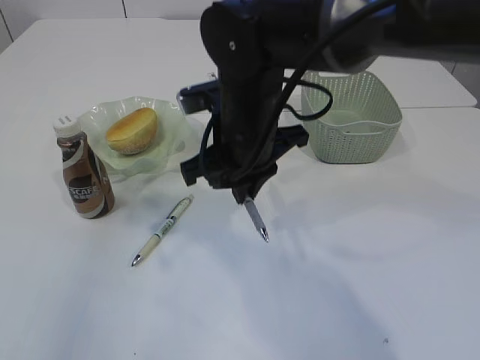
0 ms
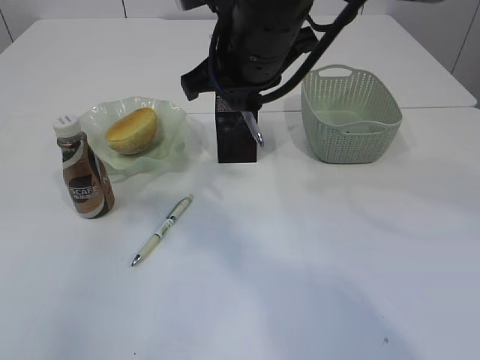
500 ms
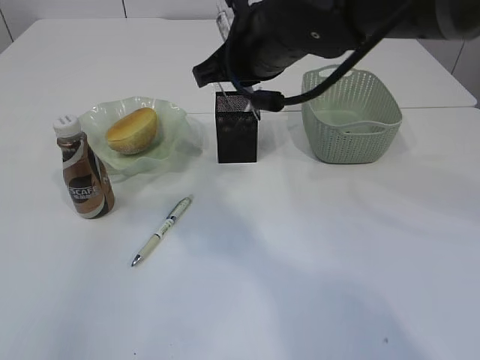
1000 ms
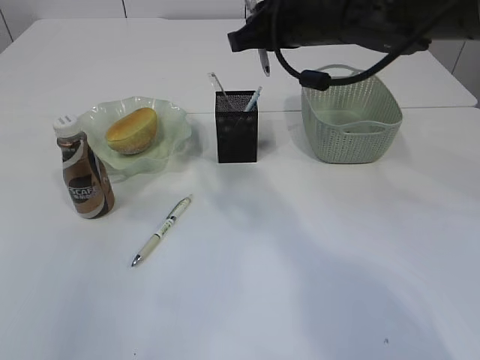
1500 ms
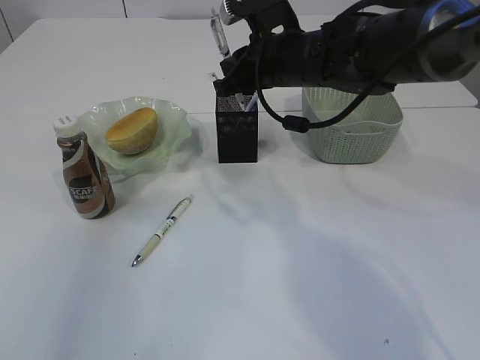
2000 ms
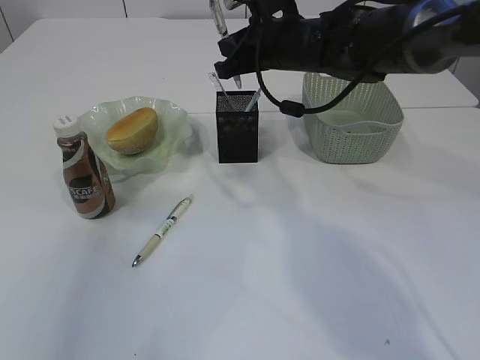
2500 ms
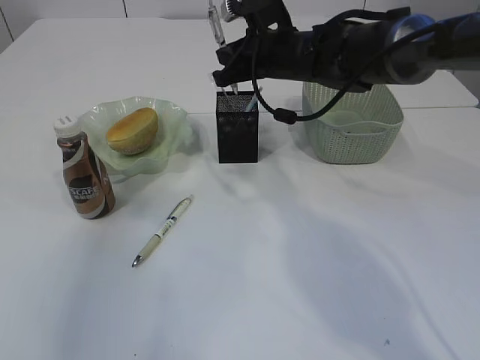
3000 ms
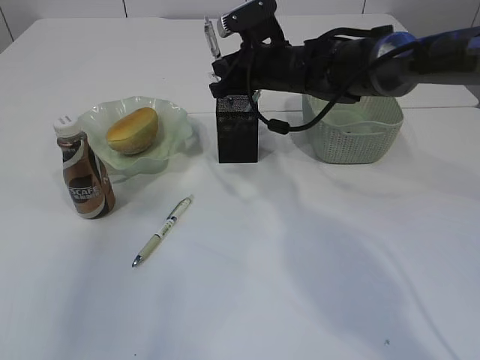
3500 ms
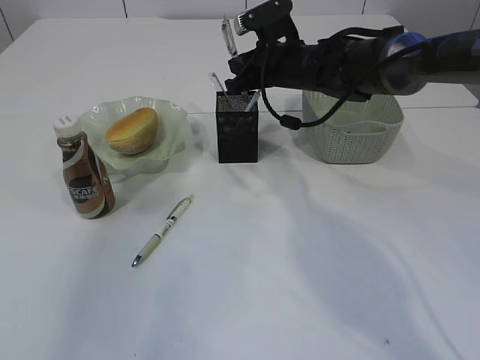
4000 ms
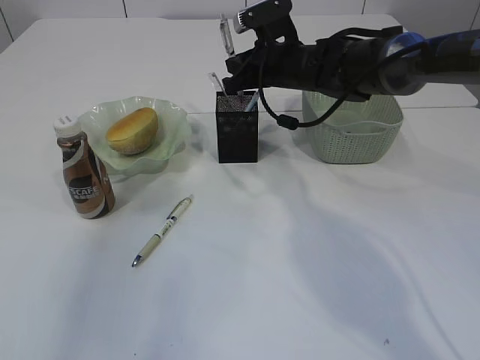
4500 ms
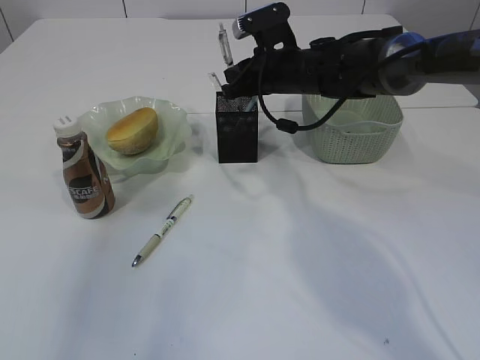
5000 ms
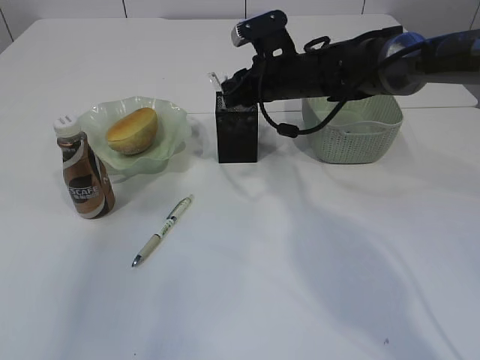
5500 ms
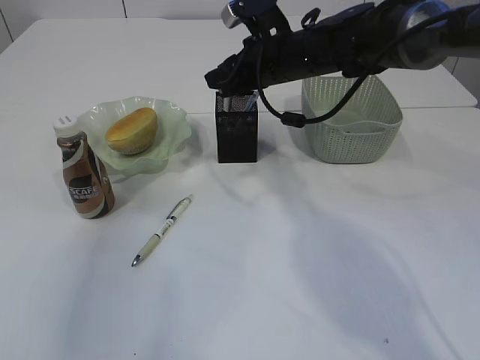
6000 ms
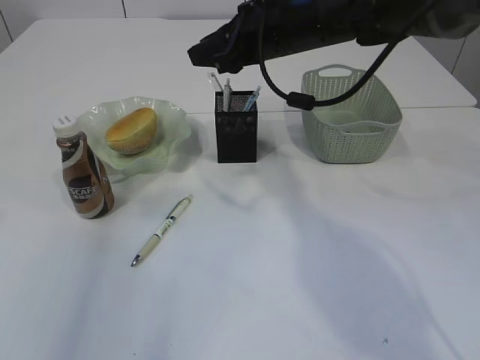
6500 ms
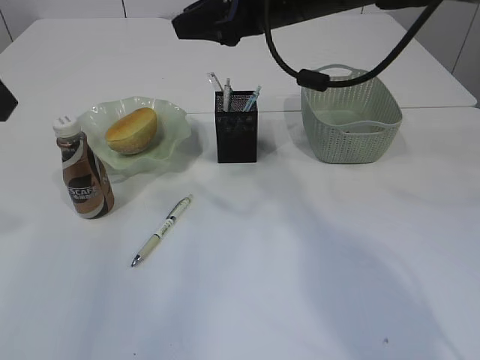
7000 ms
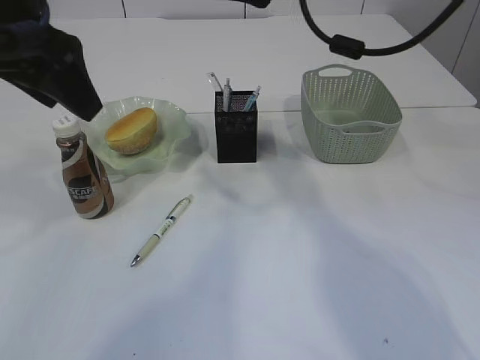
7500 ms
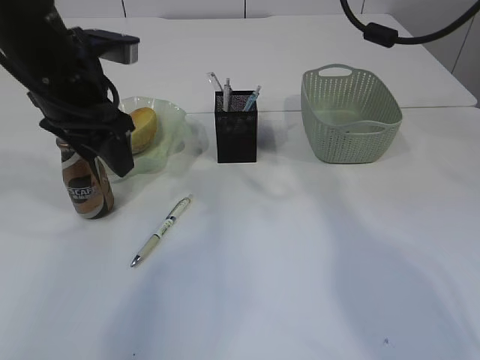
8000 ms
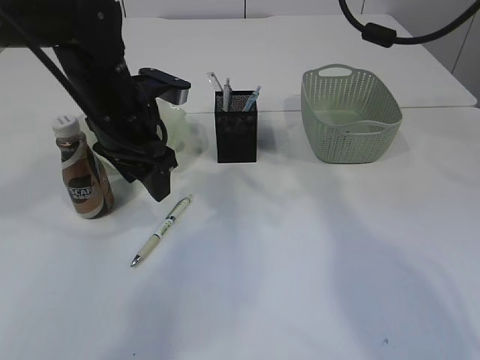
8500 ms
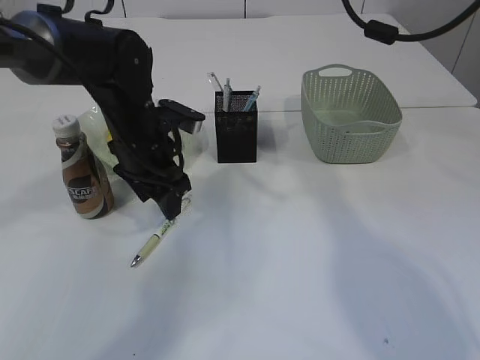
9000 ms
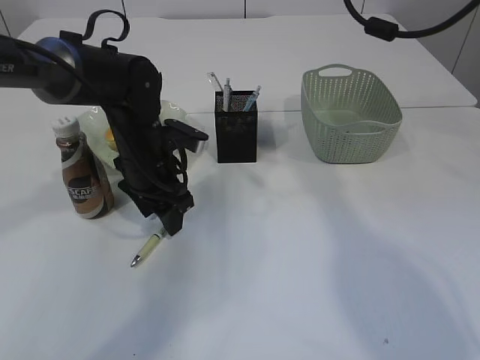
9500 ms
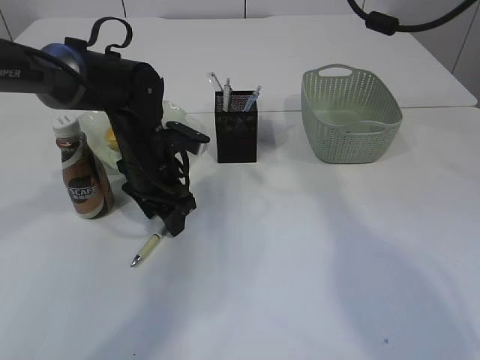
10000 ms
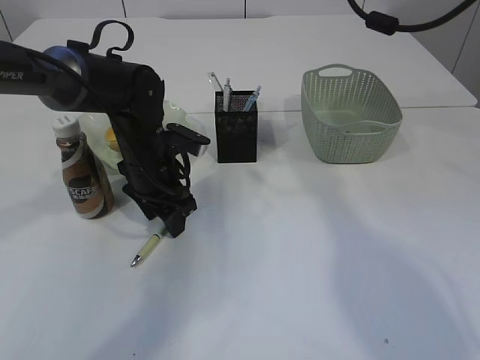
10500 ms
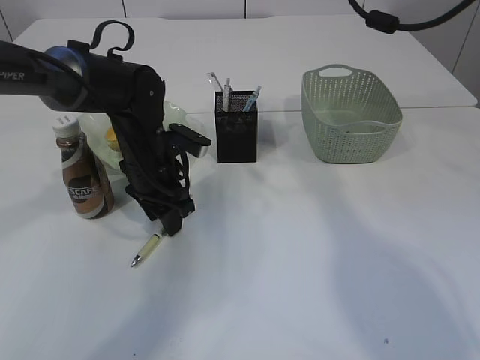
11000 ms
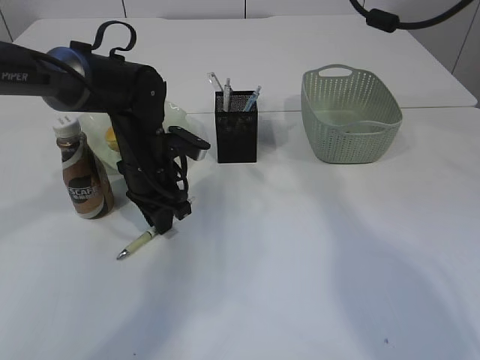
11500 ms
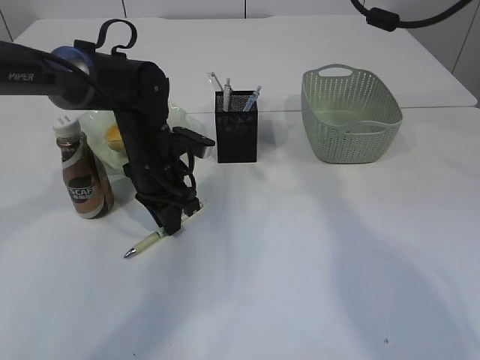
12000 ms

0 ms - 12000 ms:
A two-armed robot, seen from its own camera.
Step, 500 ms - 6500 ms: Place the pen into the pen holder.
0 ms - 2000 ms: The right gripper travels forward and to the right by some 10 cm.
2000 ms - 4000 ms: The right gripper goes approximately 5 cm forward.
4000 ms - 6000 ms: The grippers stay close to where they were, moving slightly.
6000 ms - 8000 ms: The left gripper heads forward, downward and to the right, covering some 20 cm. The right gripper travels upward and to the right by roughly 15 cm.
8000 ms - 10000 ms: The left gripper goes some 15 cm downward.
10000 ms - 12000 ms: The left gripper closes.

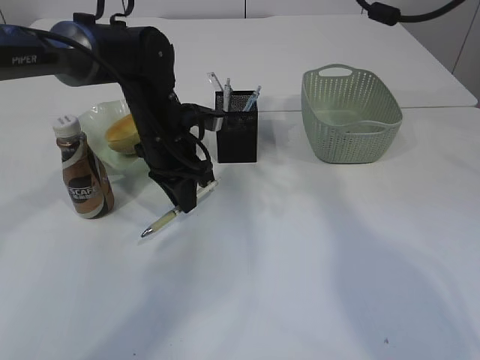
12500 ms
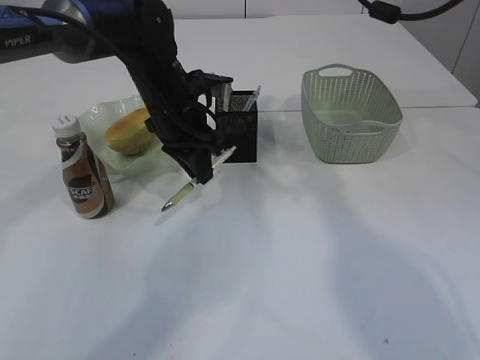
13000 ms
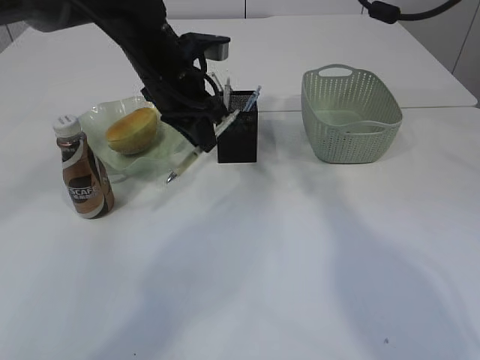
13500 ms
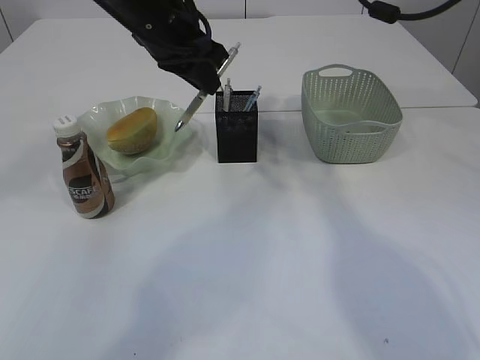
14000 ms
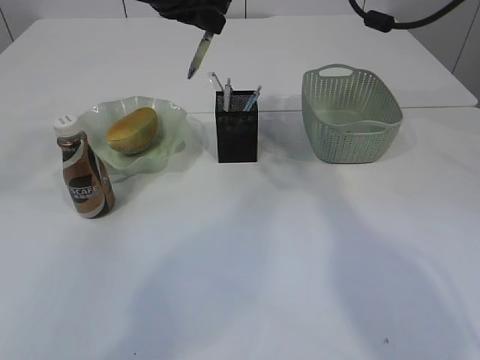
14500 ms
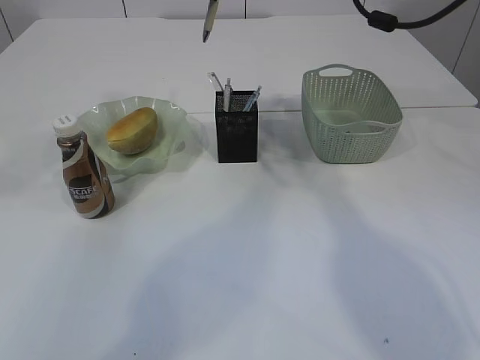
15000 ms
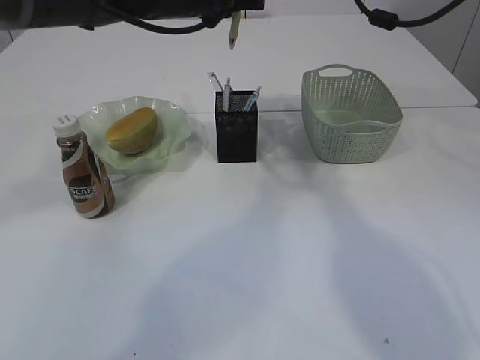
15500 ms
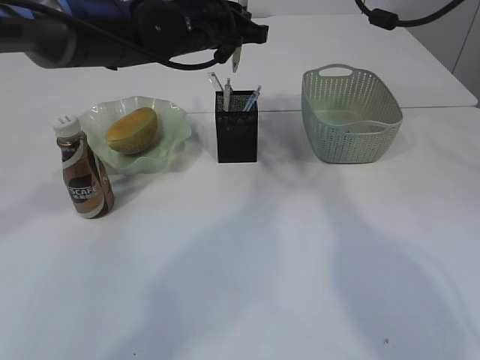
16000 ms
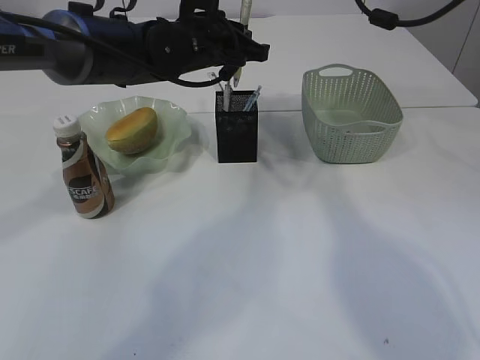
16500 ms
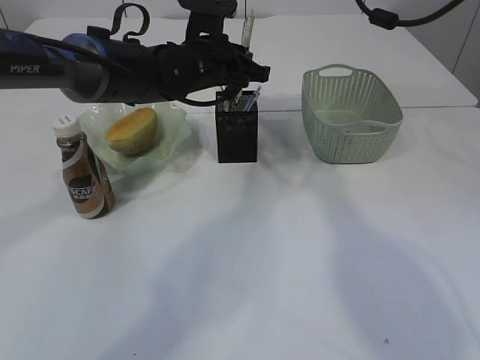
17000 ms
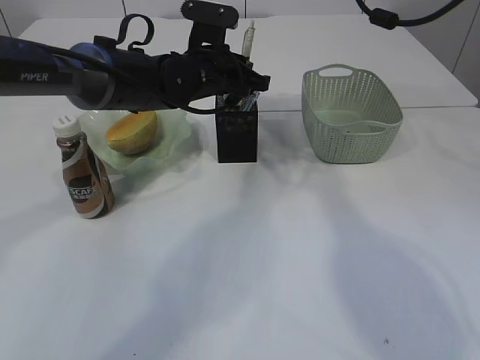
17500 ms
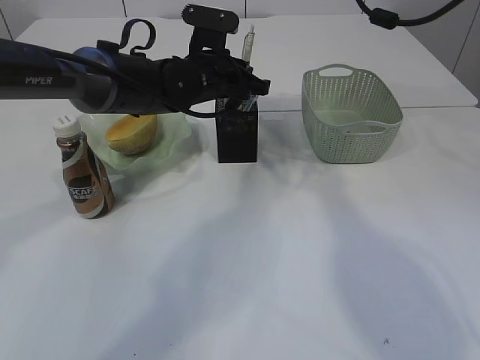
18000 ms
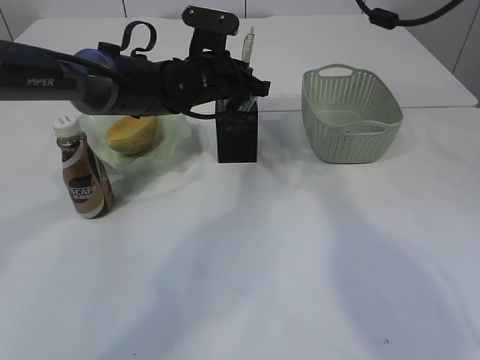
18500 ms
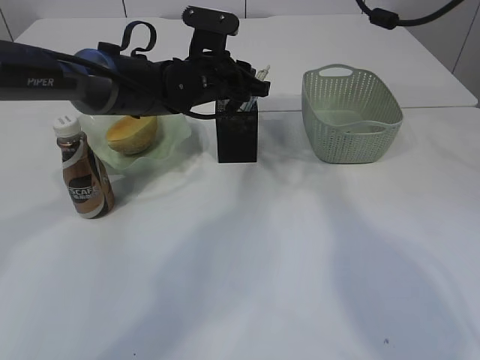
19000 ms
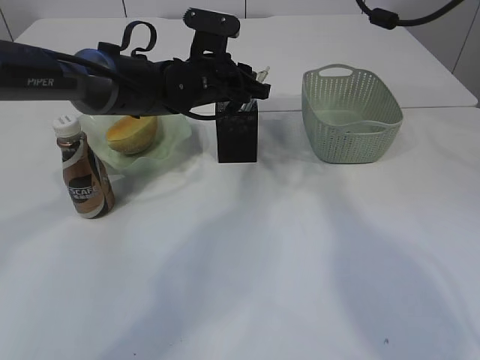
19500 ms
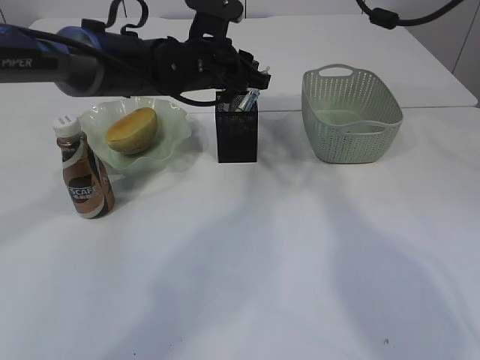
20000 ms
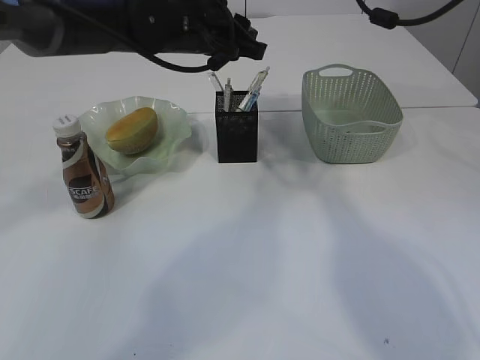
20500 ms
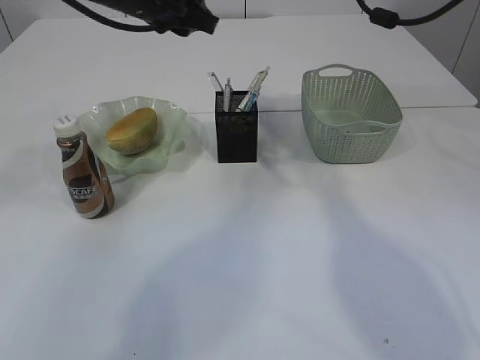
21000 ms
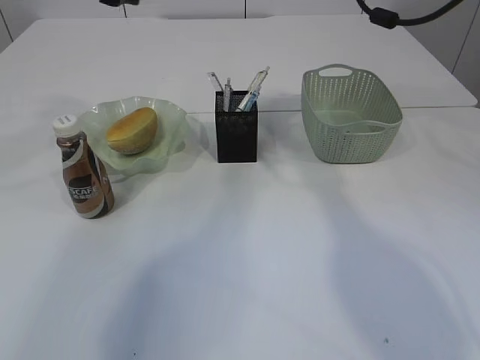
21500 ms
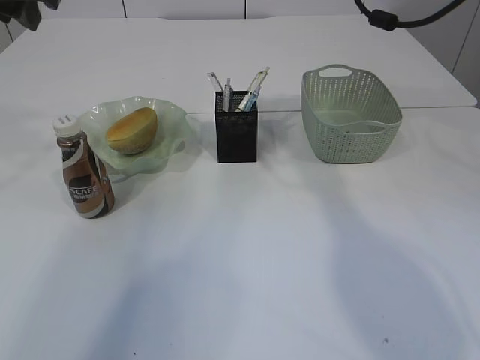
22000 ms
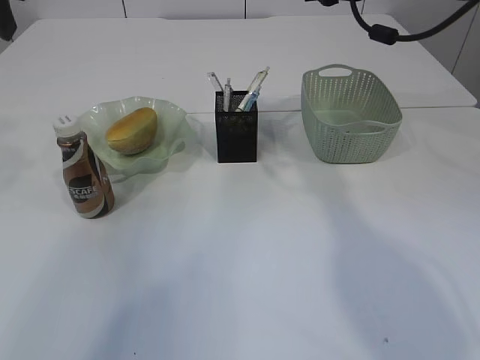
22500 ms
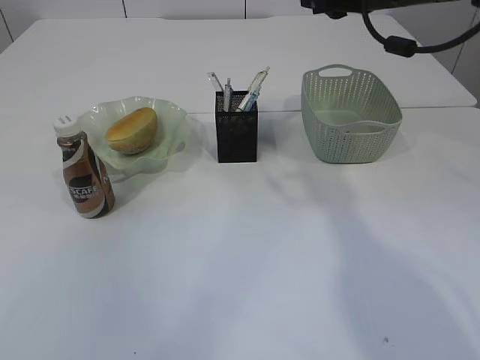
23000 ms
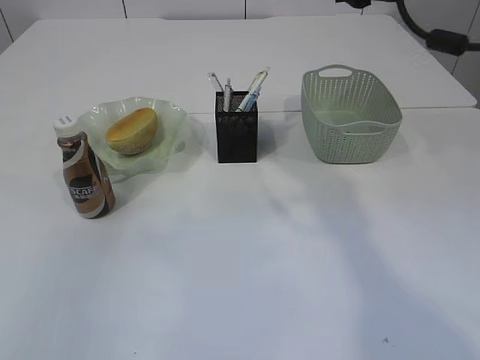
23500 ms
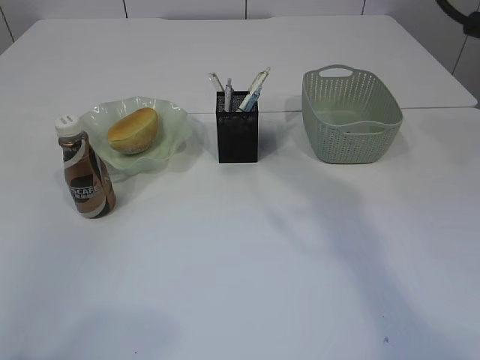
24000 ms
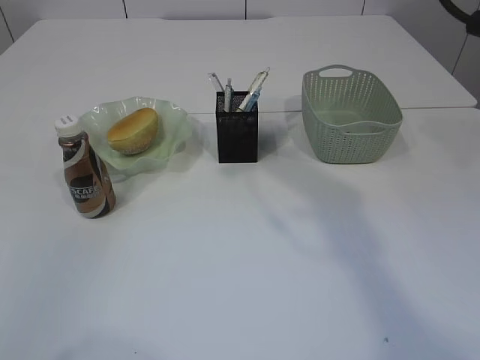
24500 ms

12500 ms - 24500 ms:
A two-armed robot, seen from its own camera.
Step, 13000 ms - 20500 ms: Place the pen into the pen holder.
12500 ms - 14500 ms: The left gripper goes about 20 cm upward.
14500 ms - 16500 ms: The left gripper moves downward, about 10 cm.
16500 ms - 18500 ms: The left gripper moves downward, roughly 5 cm.
18500 ms - 20500 ms: The left gripper shifts approximately 10 cm upward.
20500 ms - 22500 ms: The left gripper moves to the left, upward and backward, approximately 25 cm.
22500 ms - 24500 ms: The left gripper moves backward, approximately 35 cm. The right gripper is displaced backward and upward by some 15 cm.

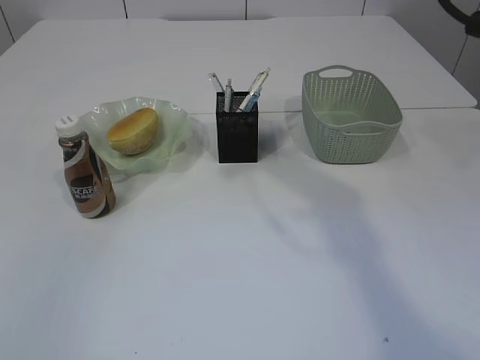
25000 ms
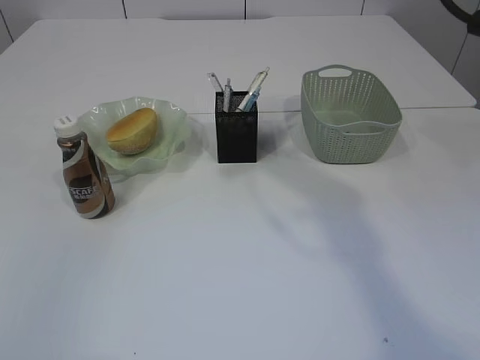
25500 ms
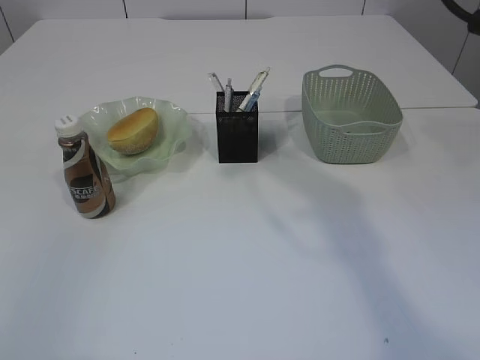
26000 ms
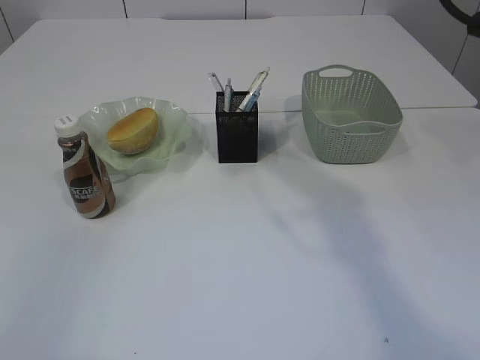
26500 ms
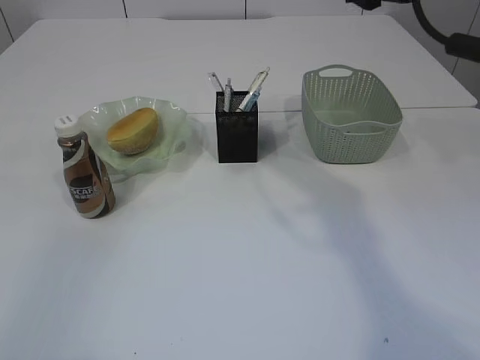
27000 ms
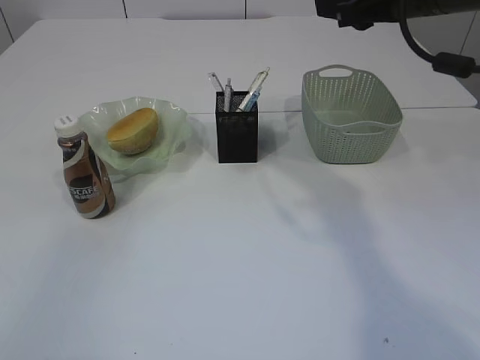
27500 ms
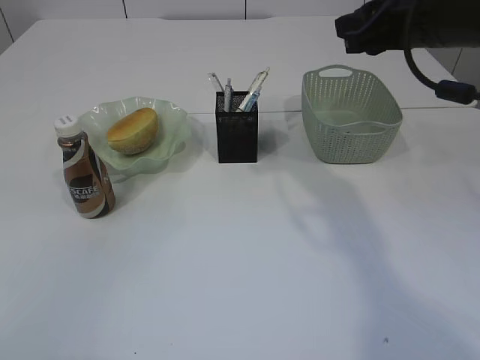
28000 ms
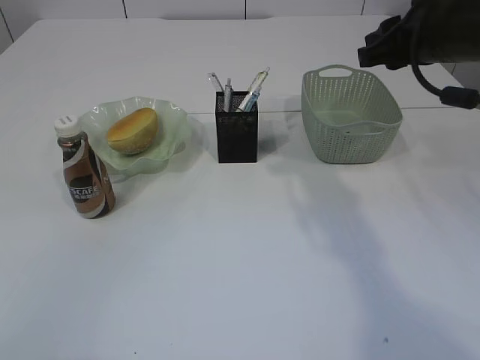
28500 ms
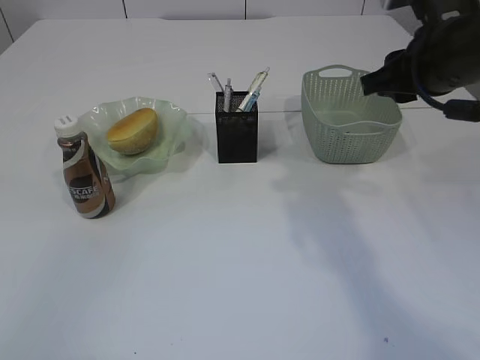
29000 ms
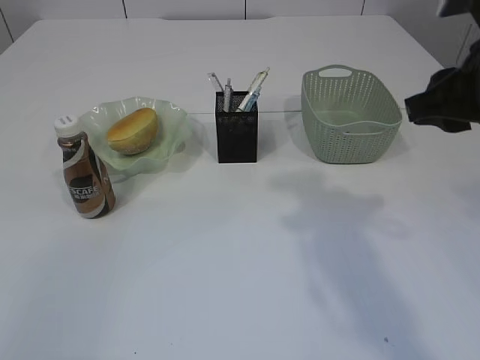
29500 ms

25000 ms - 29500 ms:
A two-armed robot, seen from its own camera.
25000 ms - 27000 ms: The grippers move only a little.
27000 ms - 29500 ms: The right gripper goes roughly 10 cm backward and downward.
